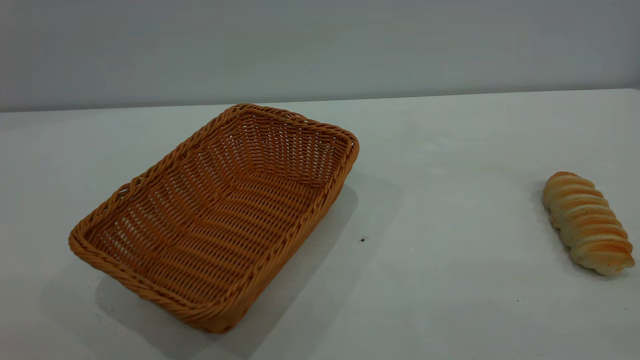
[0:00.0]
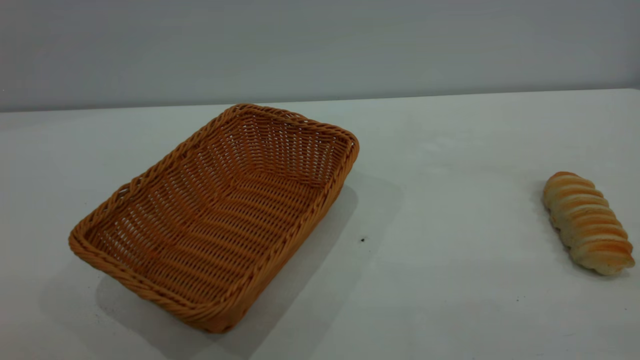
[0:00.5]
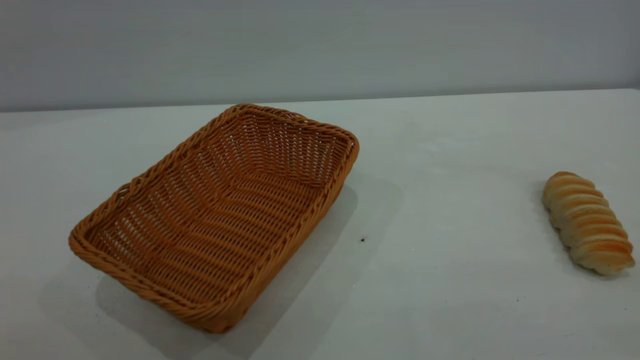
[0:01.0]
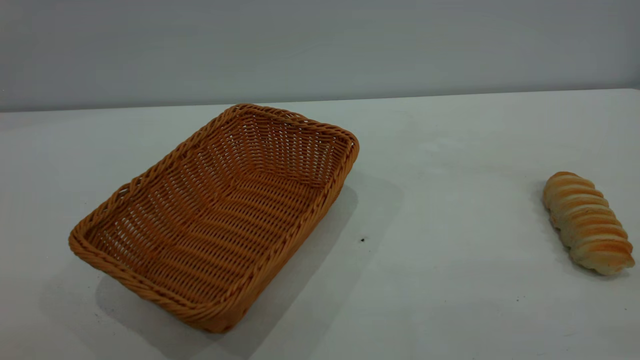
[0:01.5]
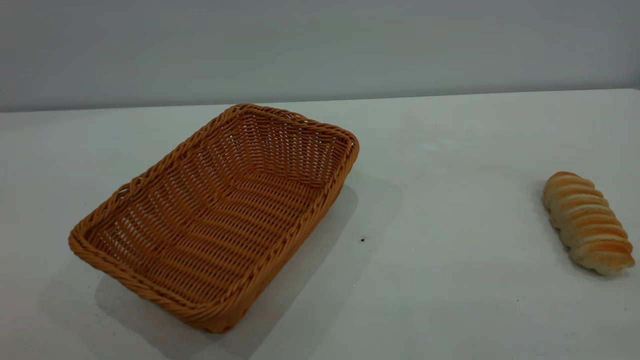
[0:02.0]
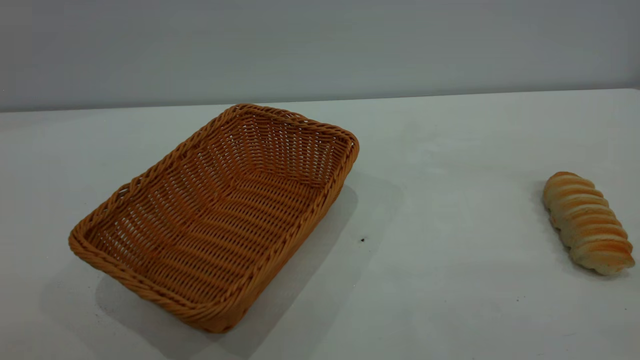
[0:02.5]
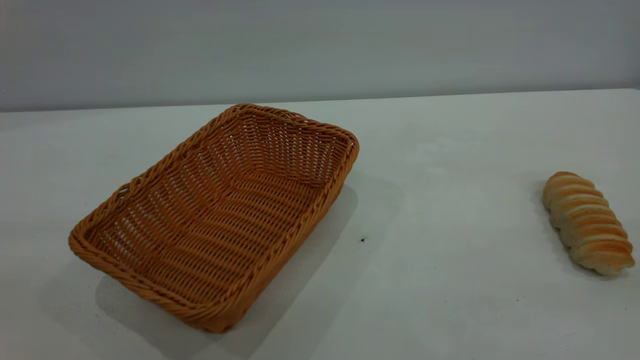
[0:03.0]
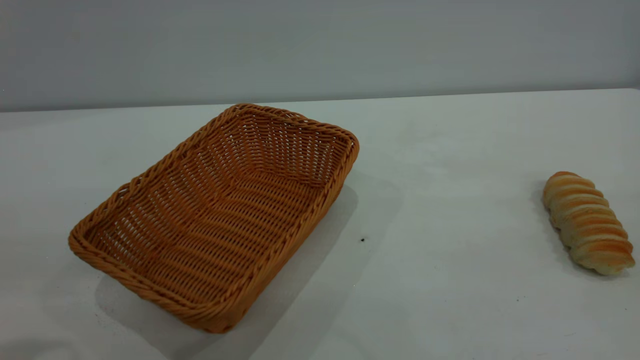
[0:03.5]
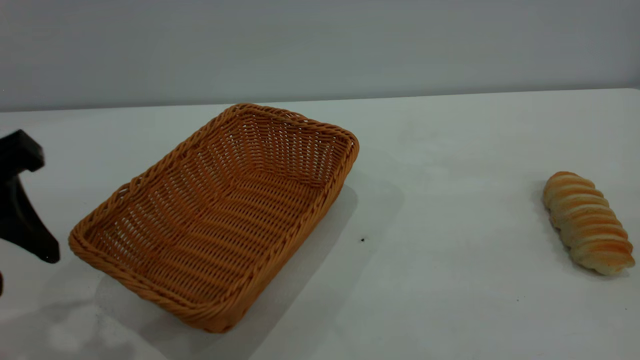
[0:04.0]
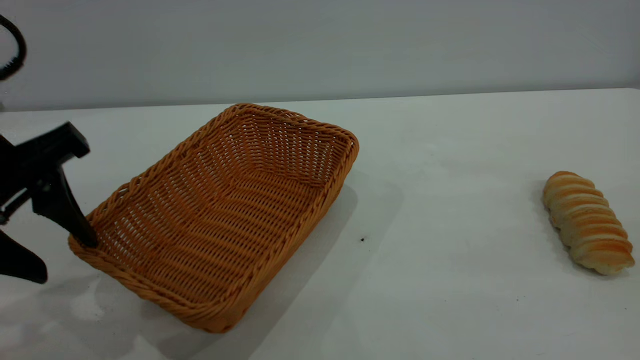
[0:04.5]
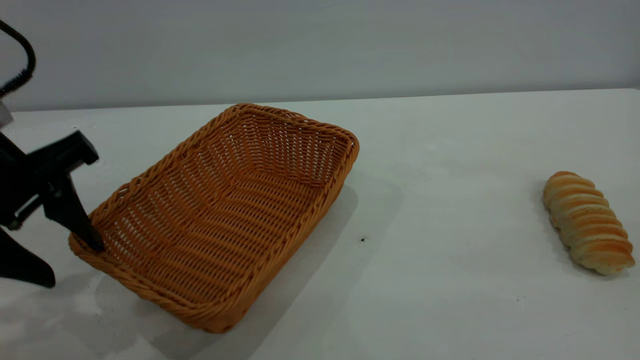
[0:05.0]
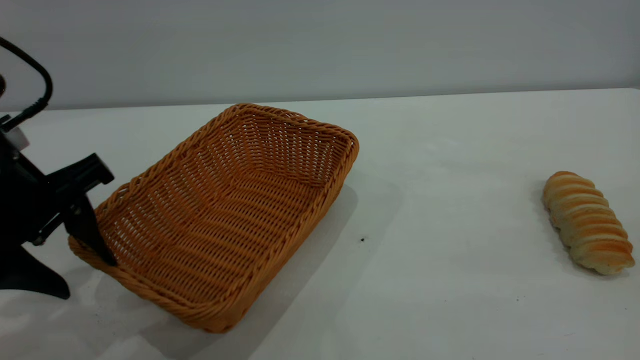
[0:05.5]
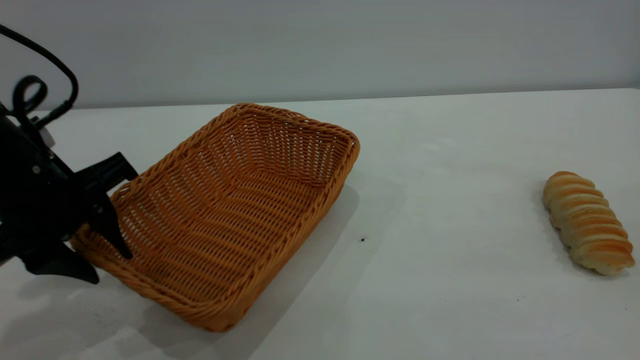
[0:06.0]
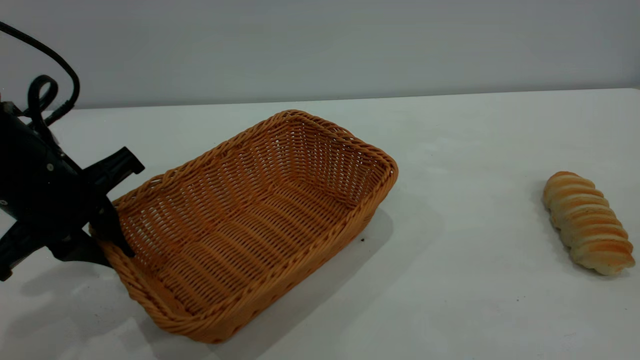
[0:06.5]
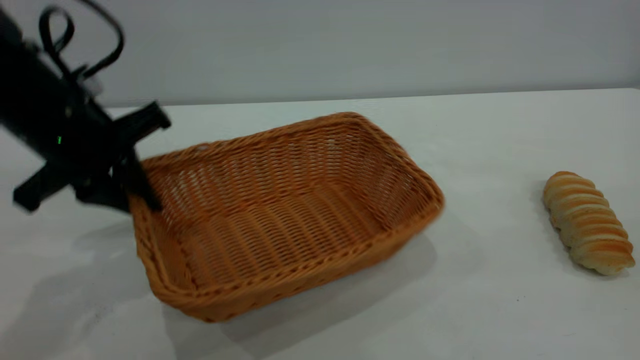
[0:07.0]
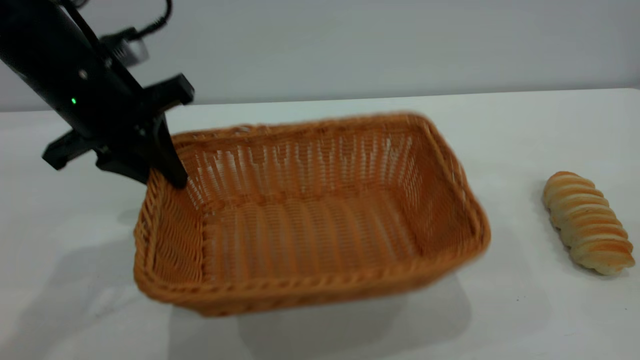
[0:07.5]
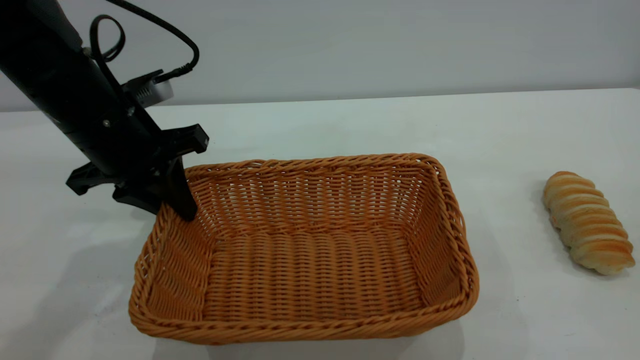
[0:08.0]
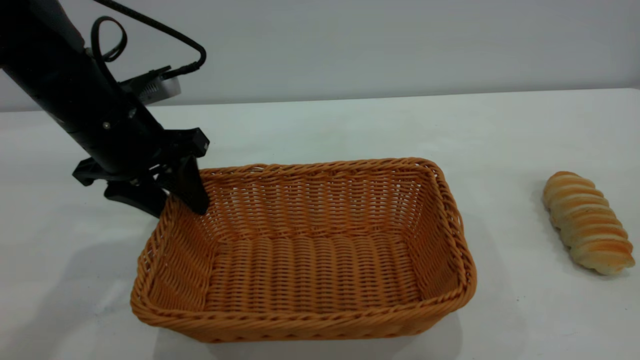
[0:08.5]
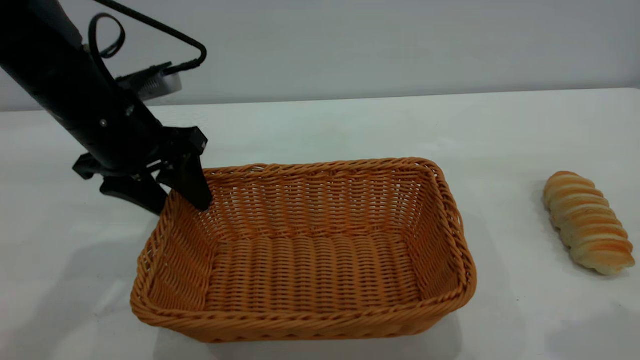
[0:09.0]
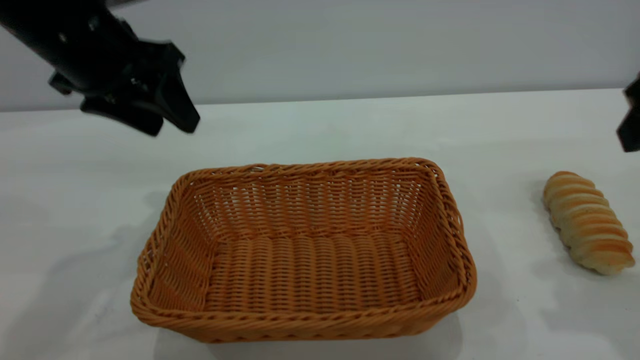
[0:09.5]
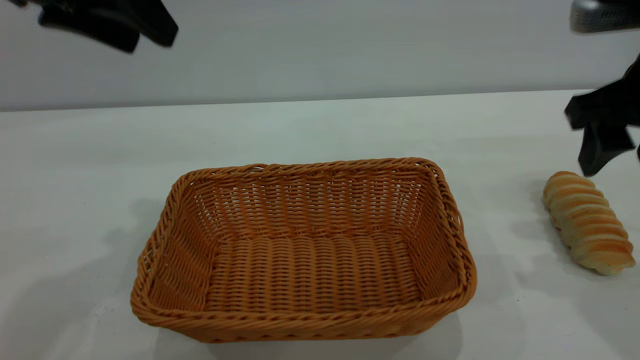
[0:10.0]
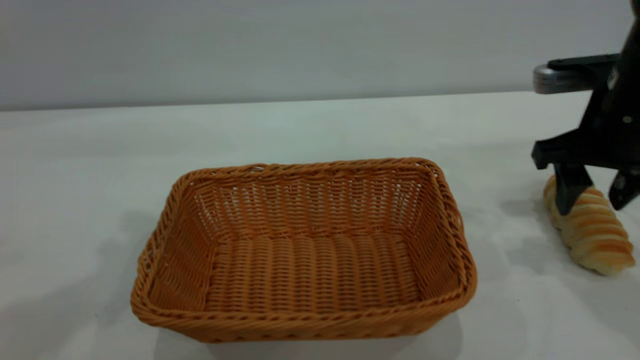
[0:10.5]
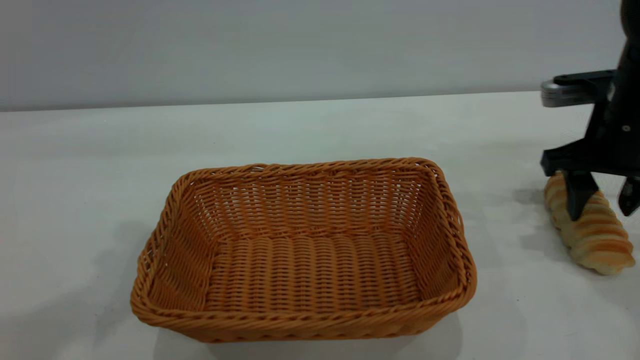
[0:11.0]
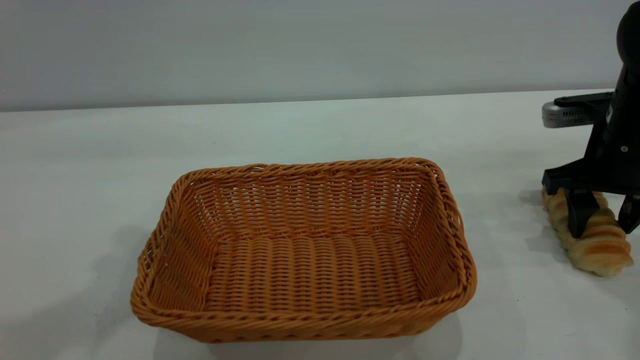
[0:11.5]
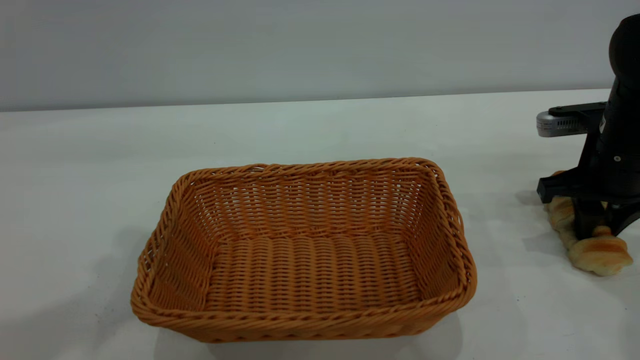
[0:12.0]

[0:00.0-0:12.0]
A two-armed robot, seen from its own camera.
Task of the whole recording: One hand grasps the yellow basket and places it in the middle of the table, while the other hand picks up the long bread and puts it into the yellow basket.
Step, 0:00.0 to 0:09.0: Move the basket to the center of view.
0:02.0 to 0:04.0: The left gripper travels forward and downward by roughly 25 cm.
0:04.0 to 0:06.0: The left gripper travels forward and downward by roughly 10 cm.
0:06.0 to 0:08.0: The left gripper moves forward, approximately 10 cm, and closes its fingers.
0:08.0 to 0:10.0: The left gripper moves upward, some 15 cm, and opens up. Meanwhile the right gripper shifts about 25 cm forward and downward.
0:10.0 to 0:12.0: The left gripper is displaced upward by roughly 5 cm. The right gripper travels downward and forward by about 15 cm, and closes its fingers.

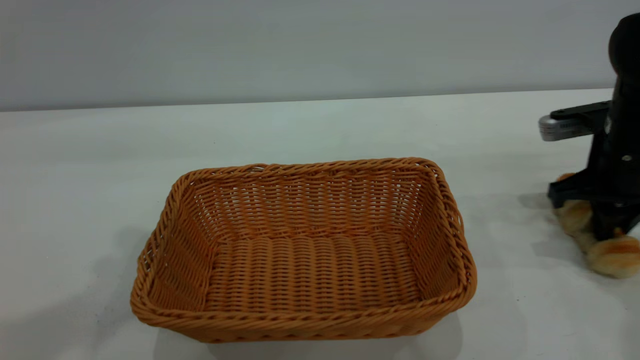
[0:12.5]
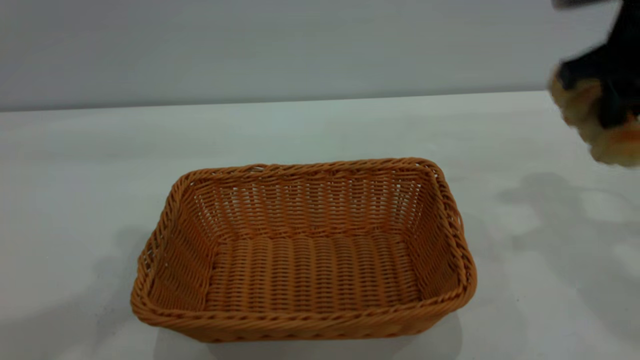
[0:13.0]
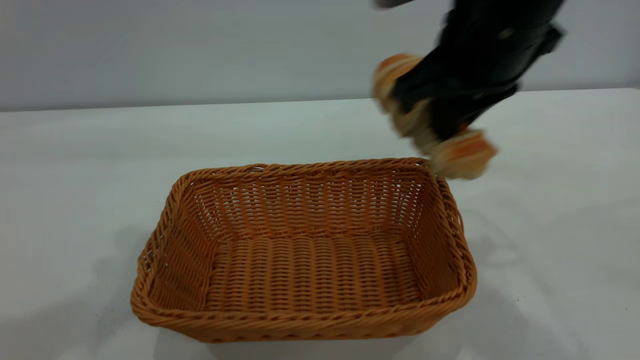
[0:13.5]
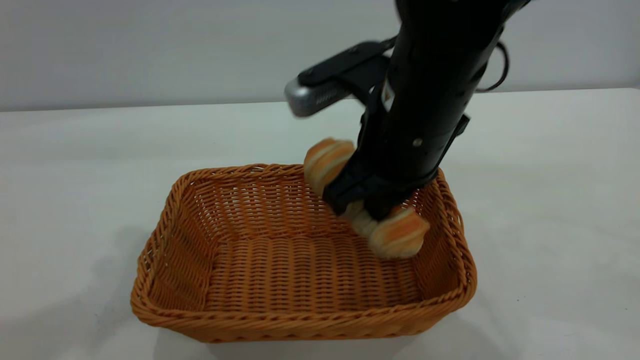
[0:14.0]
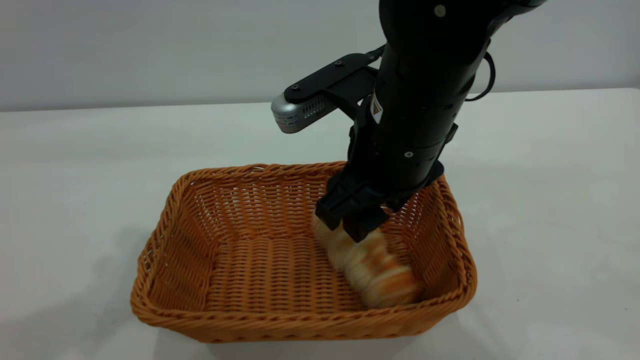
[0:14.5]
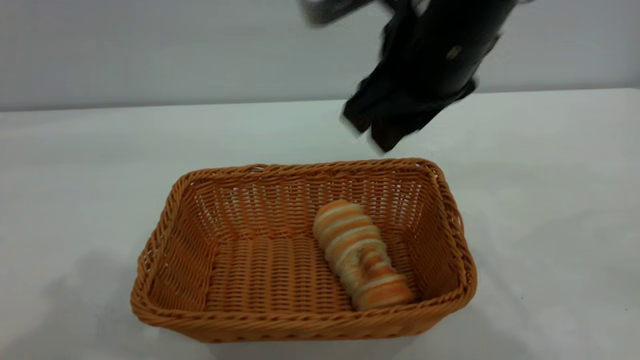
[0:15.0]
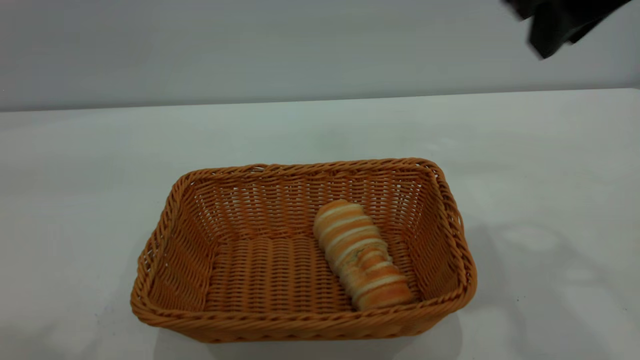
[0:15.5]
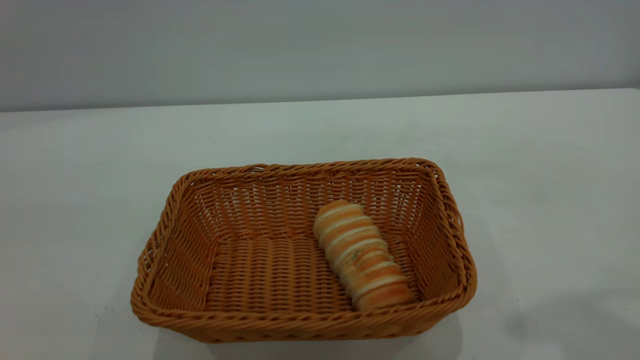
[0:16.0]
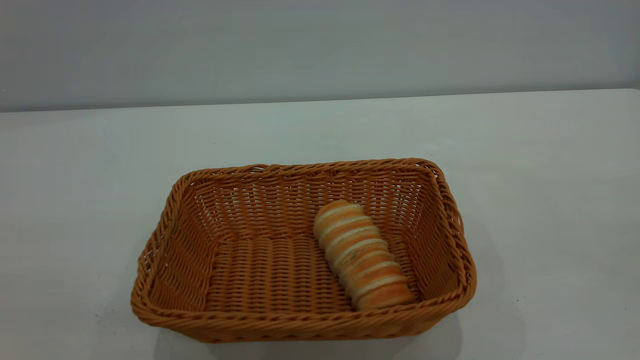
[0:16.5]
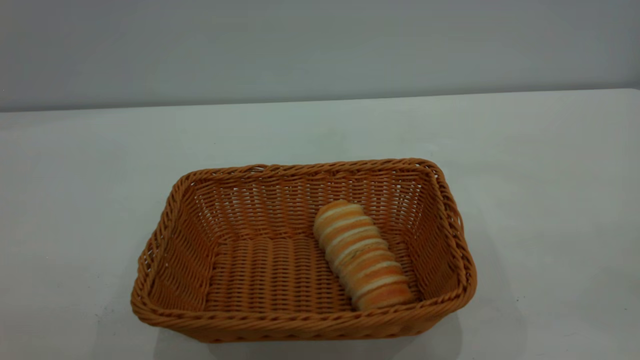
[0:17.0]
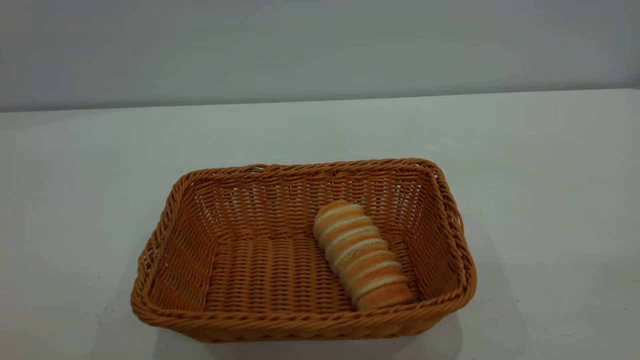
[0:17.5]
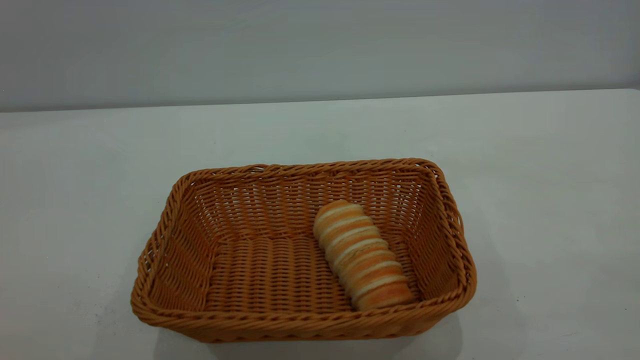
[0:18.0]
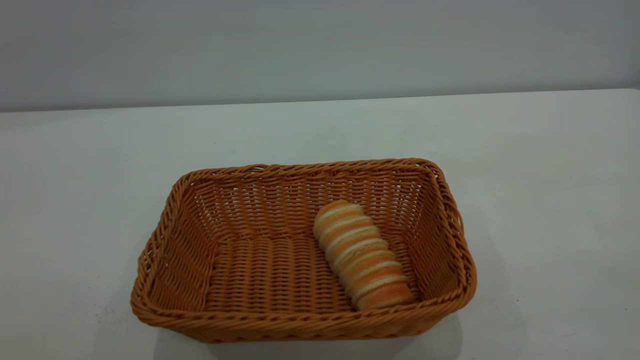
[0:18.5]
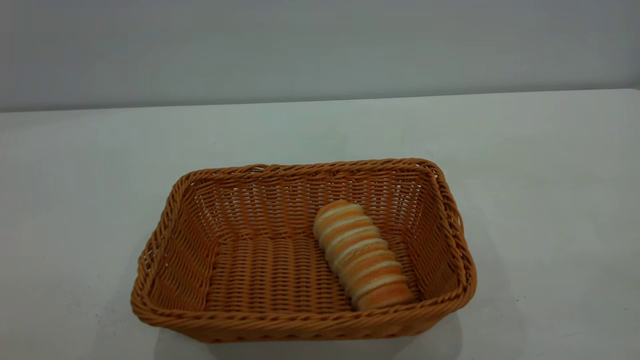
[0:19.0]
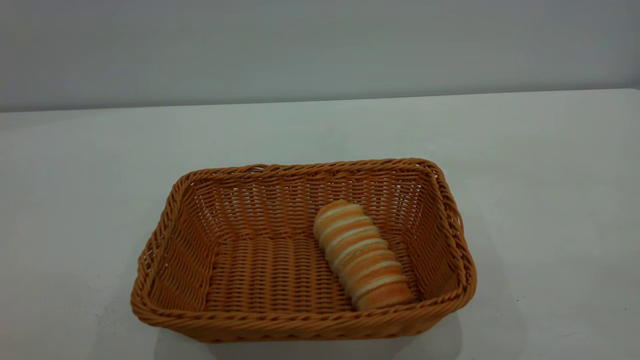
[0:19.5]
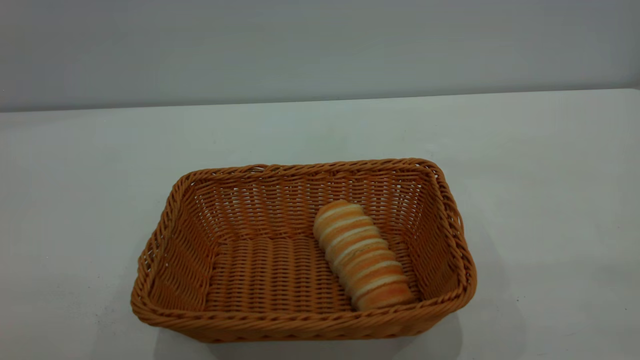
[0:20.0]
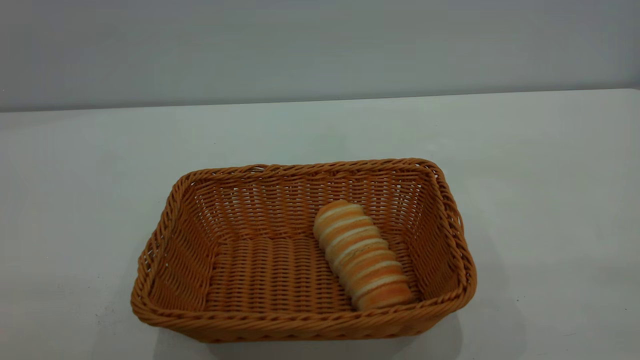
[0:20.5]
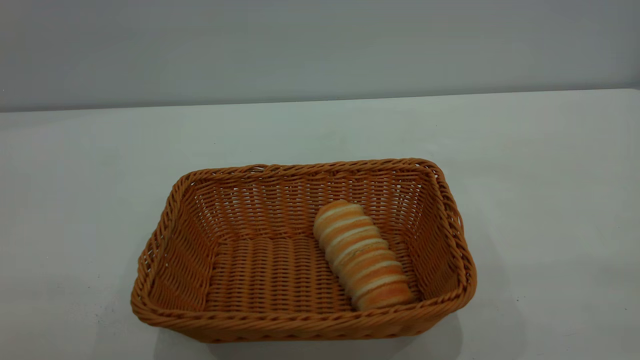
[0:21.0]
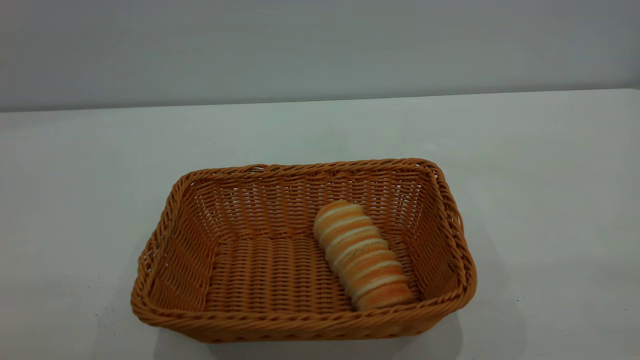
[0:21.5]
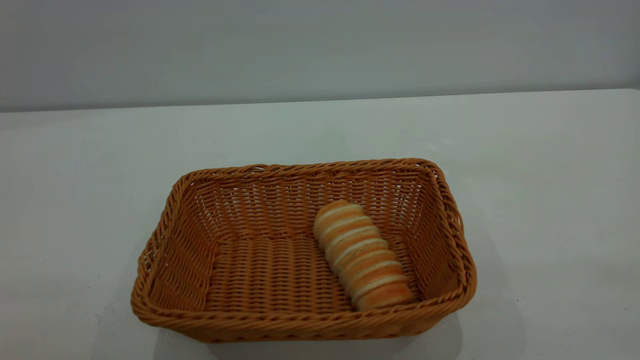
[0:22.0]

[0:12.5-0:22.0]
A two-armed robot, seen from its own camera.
Task of the whole recording: One hand grasps the yellow basket and places it in the middle of the table, while the other hand picks up the long bread and puts it into the yellow basket.
Step, 0:13.0 to 0:15.0: place the bread into the basket.
0:12.5 to 0:14.5: The right gripper is displaced to the left by some 25 cm, and opens up.
0:14.5 to 0:16.5: The left gripper is displaced backward by some 25 cm. The right gripper goes some 40 cm to the right, backward and upward, and closes up.
0:20.0 to 0:22.0: Both grippers stay about where they are.
